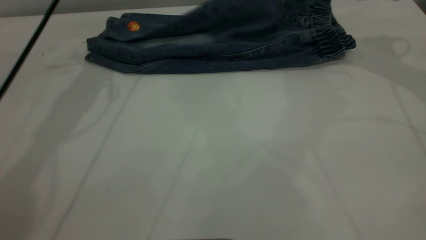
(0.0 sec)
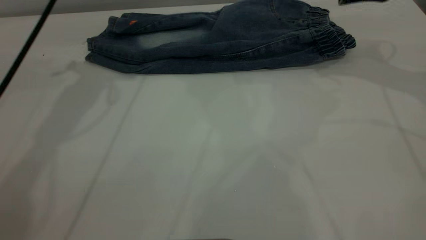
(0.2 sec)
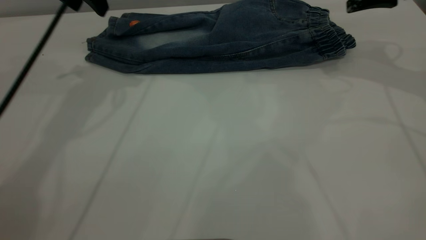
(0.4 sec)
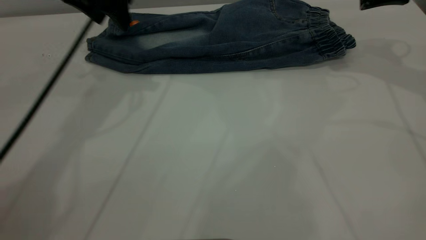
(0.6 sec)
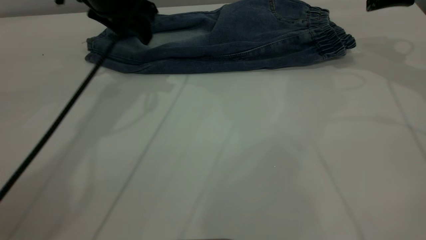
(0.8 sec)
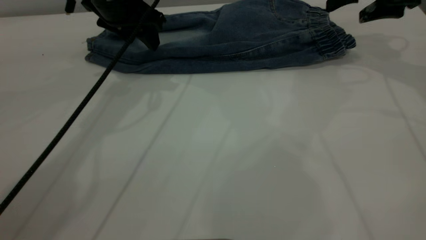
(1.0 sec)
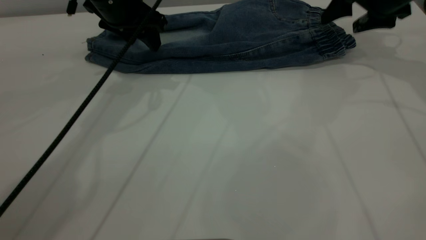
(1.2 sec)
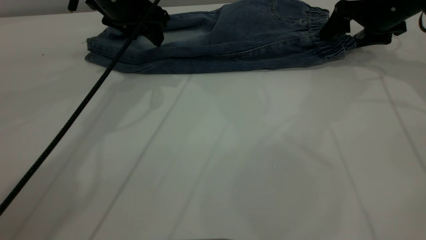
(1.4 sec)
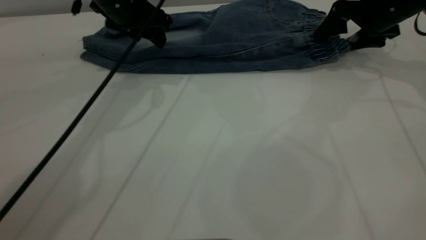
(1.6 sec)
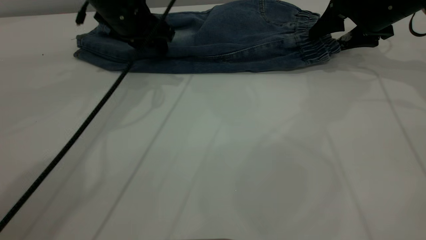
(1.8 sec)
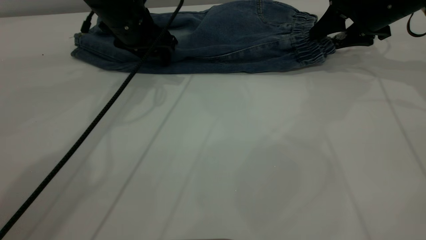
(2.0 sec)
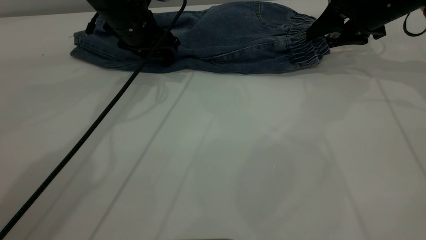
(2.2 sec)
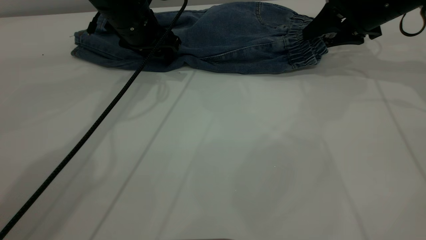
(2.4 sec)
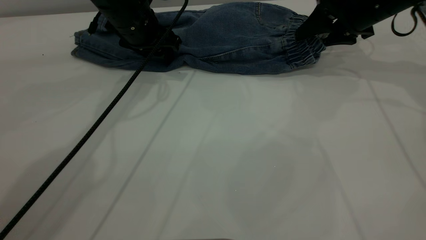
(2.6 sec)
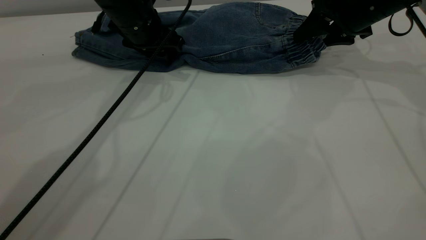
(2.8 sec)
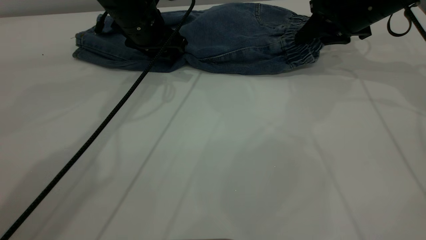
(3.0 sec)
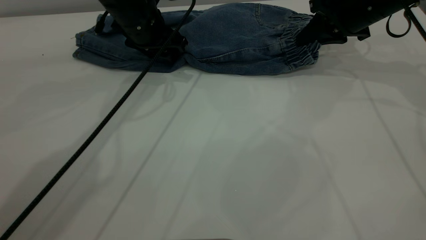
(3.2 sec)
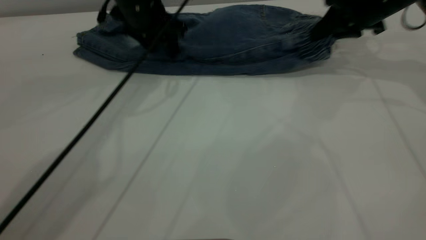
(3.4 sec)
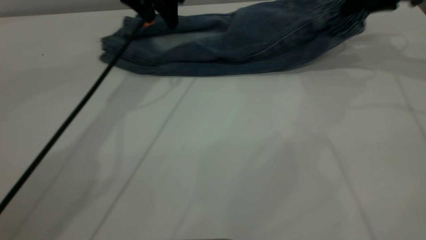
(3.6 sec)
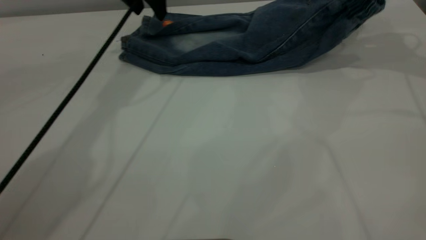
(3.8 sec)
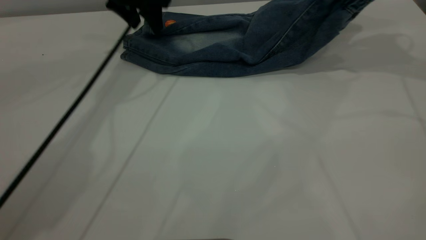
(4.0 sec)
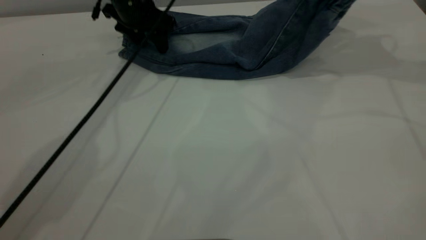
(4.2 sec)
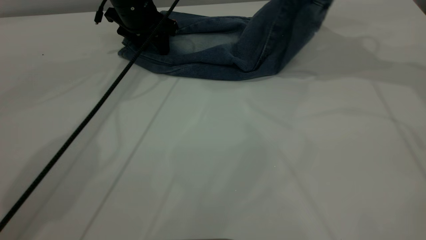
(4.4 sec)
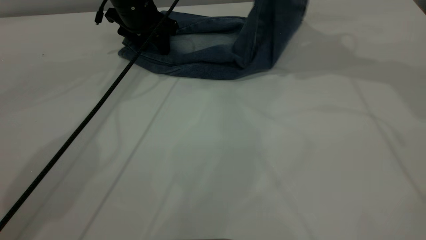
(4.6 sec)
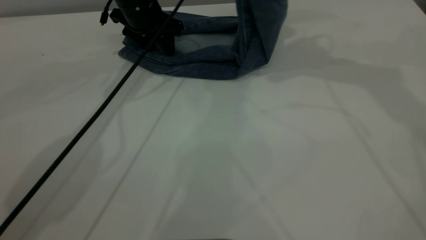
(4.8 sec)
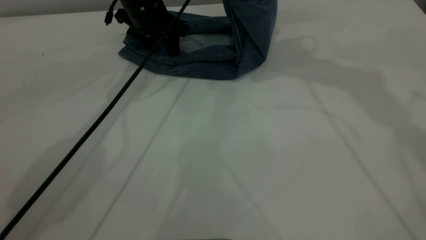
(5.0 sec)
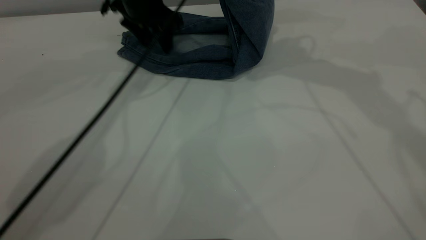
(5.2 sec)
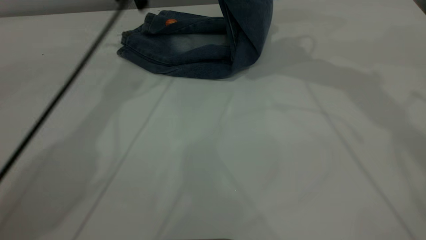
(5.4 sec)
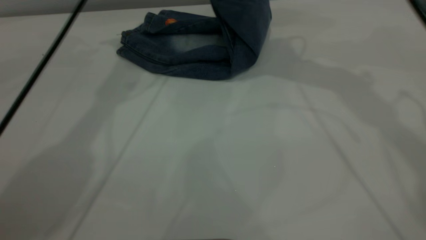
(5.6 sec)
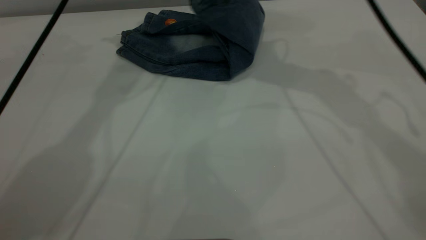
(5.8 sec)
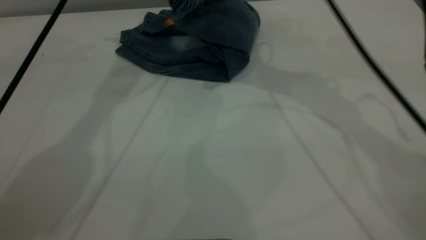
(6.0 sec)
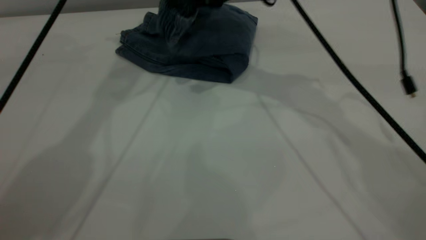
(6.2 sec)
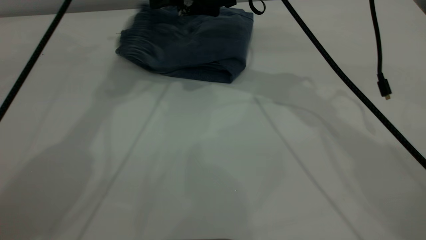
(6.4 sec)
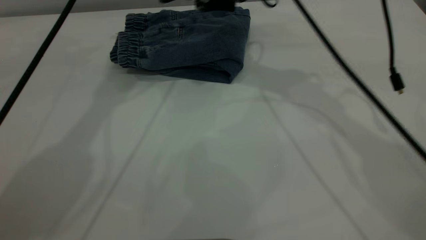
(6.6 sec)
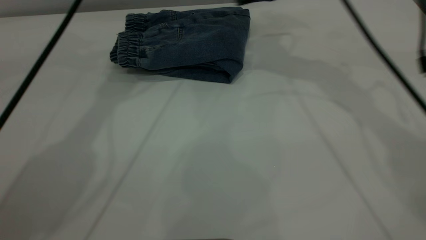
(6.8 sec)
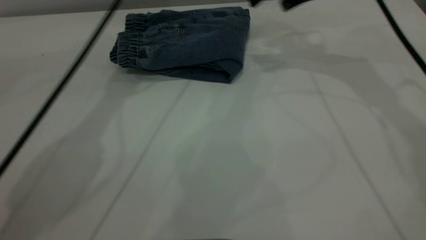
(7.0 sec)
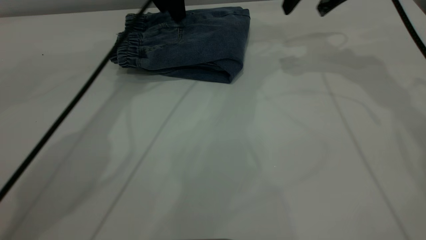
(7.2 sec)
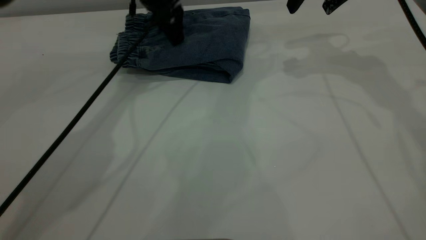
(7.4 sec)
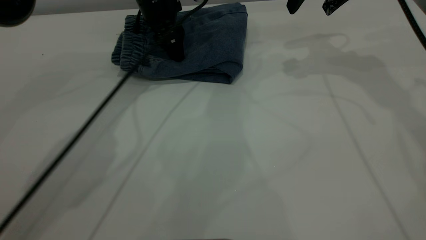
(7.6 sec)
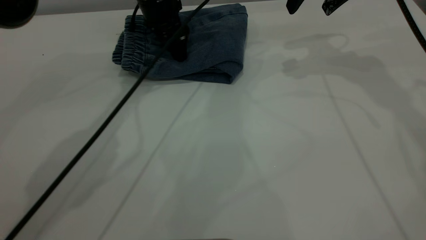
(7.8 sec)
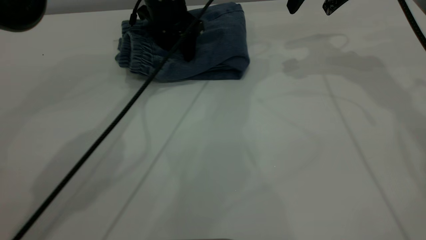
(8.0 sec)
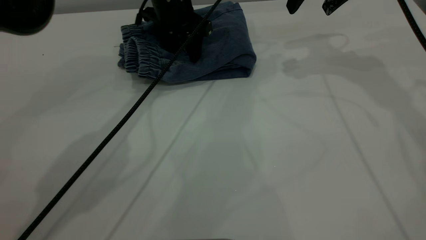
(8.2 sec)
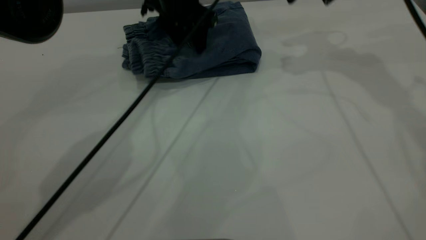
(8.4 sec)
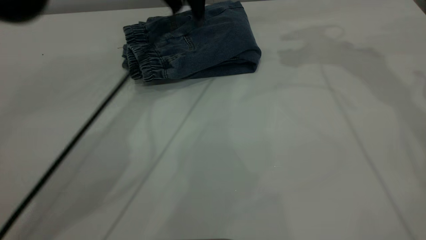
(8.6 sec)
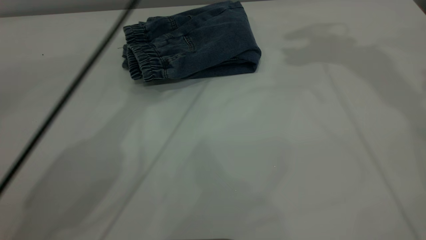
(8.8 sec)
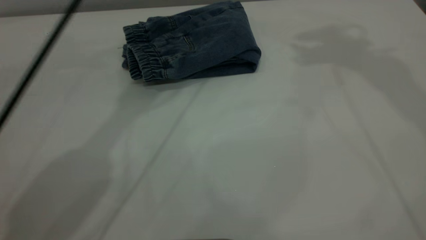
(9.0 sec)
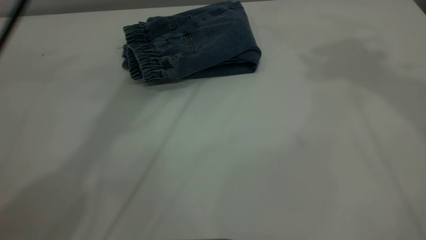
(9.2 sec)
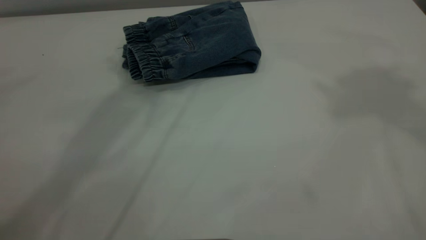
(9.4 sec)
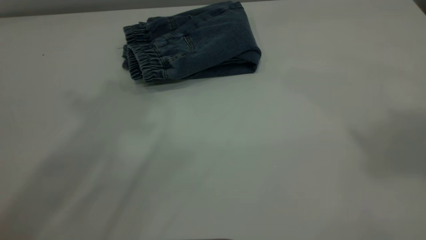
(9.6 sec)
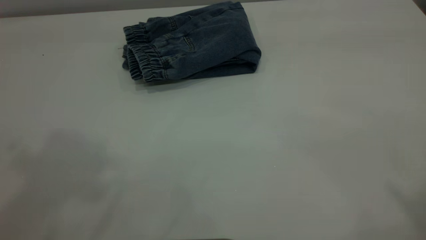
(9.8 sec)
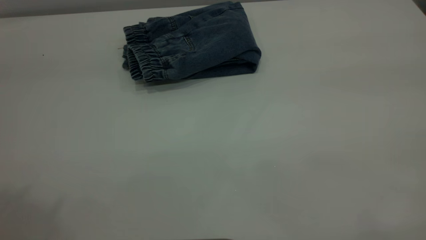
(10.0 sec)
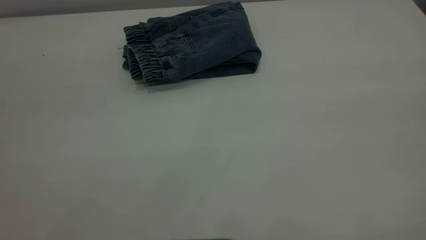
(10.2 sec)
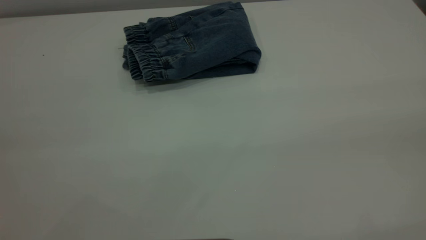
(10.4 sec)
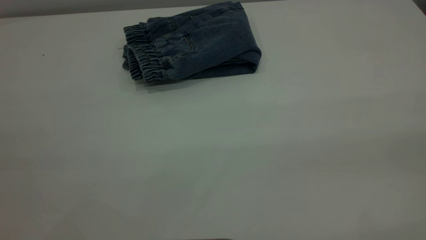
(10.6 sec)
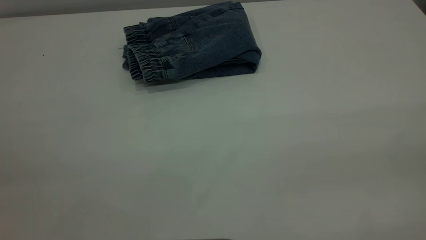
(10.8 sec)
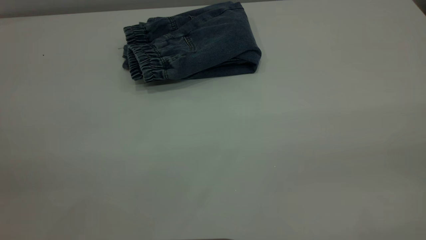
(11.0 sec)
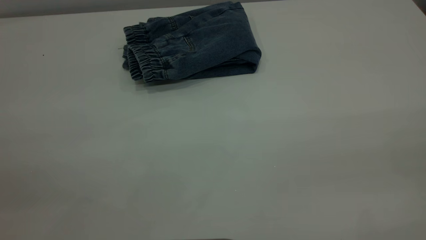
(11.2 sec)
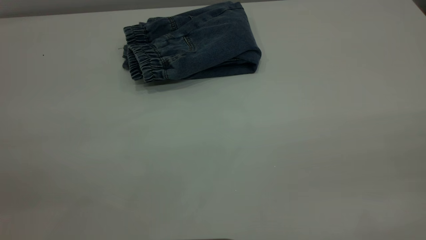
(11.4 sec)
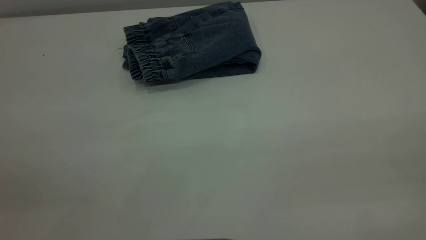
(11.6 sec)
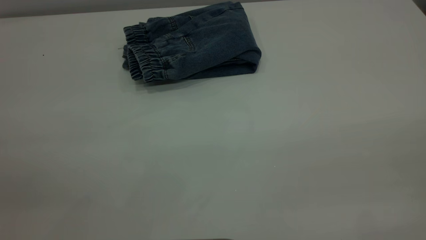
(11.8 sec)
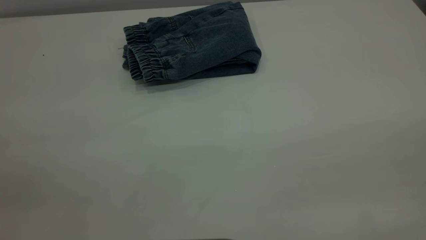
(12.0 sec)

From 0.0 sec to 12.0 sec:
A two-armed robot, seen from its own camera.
Step, from 0.2 sec to 6.6 sec: Fold your pants from right to left.
From 0.0 sec to 1.6 sec: The right gripper is displaced downward by roughly 10 cm, while the left gripper heads to the right and downward, covering approximately 10 cm.
From 1.6 sec to 3.0 sec: The right gripper closes its fingers.
From 3.0 sec to 4.4 sec: The left gripper is displaced forward by about 5 cm, and goes upward and returns, roughly 10 cm each way; the right gripper is displaced upward by roughly 15 cm.
From 4.4 sec to 6.0 sec: The right gripper heads to the left, covering about 20 cm; the left gripper travels upward by roughly 20 cm.
From 6.0 sec to 7.6 sec: The right gripper shifts roughly 15 cm to the right, and opens its fingers, while the left gripper travels downward by about 20 cm.
From 7.6 sec to 9.0 sec: Both grippers travel together upward, about 25 cm.
From 9.0 sec to 10.4 sec: The left gripper heads backward and to the left, covering about 50 cm.
